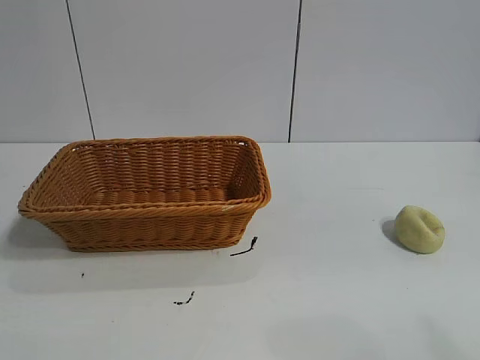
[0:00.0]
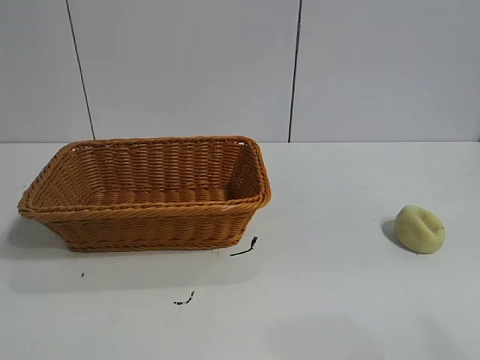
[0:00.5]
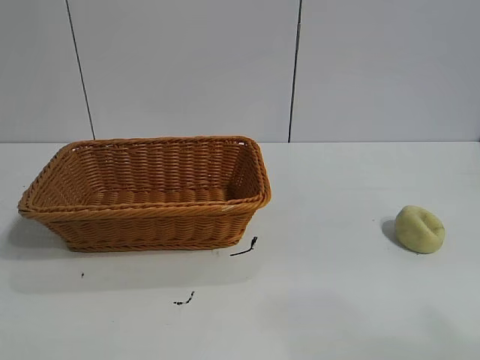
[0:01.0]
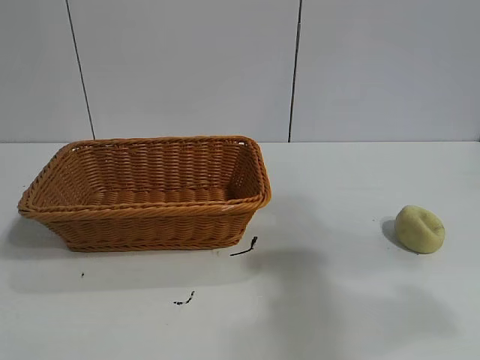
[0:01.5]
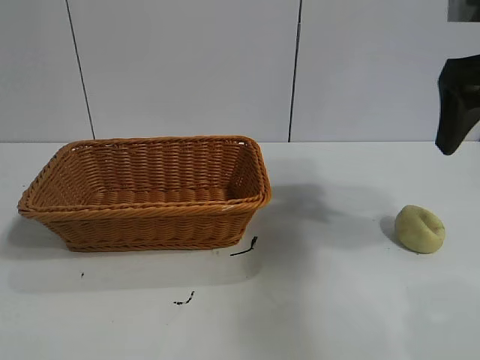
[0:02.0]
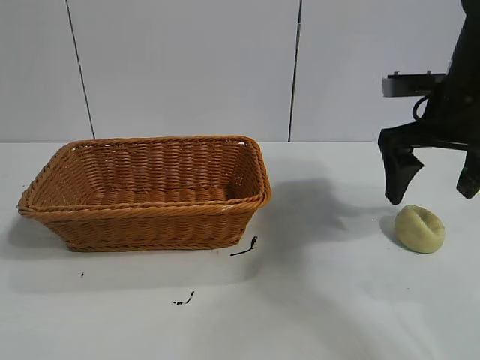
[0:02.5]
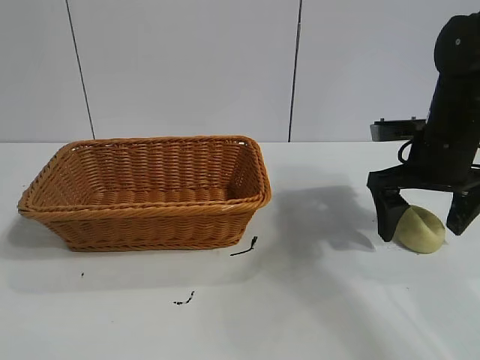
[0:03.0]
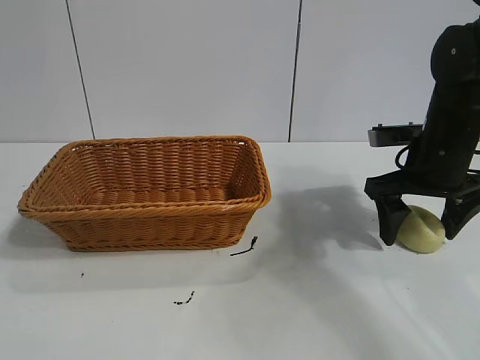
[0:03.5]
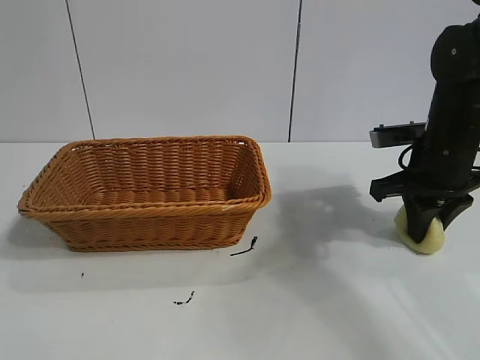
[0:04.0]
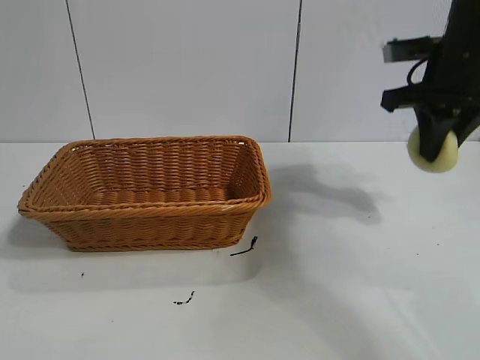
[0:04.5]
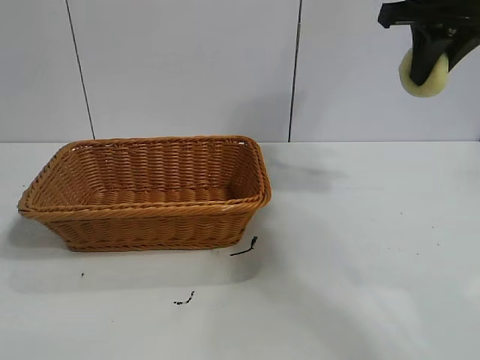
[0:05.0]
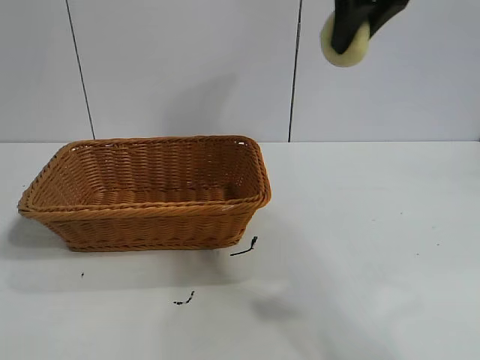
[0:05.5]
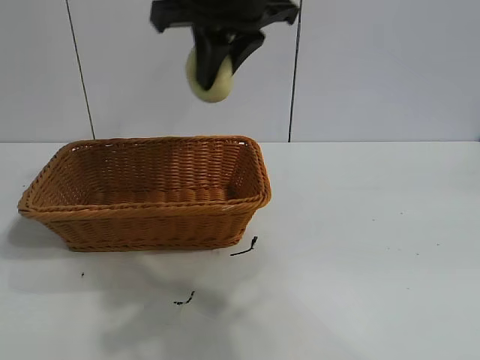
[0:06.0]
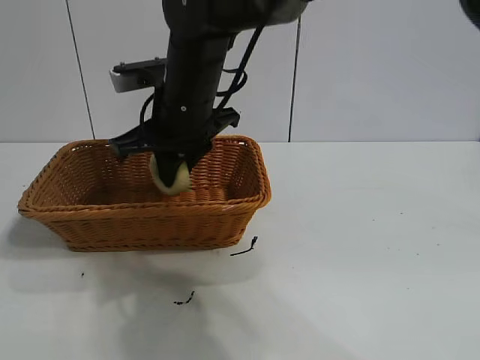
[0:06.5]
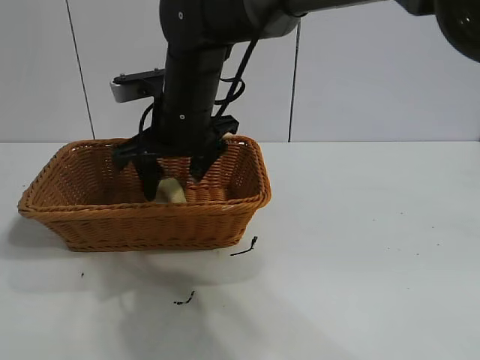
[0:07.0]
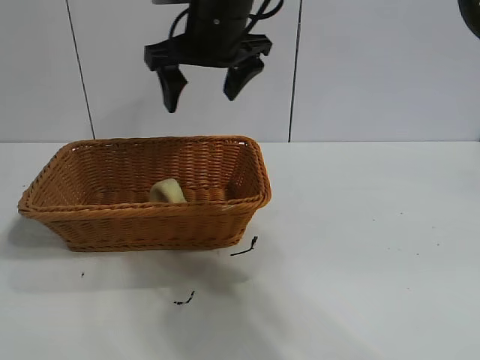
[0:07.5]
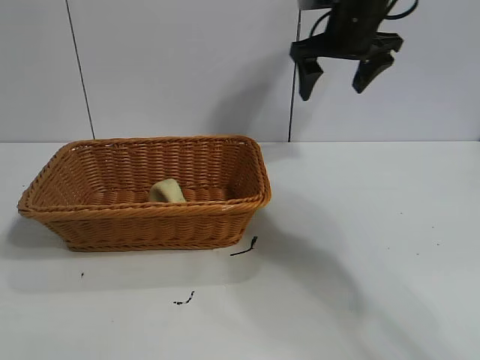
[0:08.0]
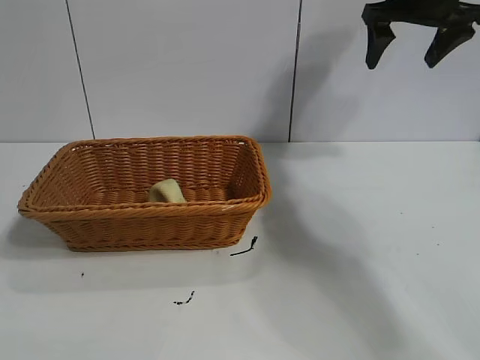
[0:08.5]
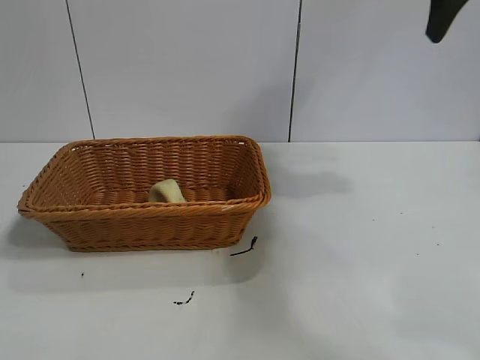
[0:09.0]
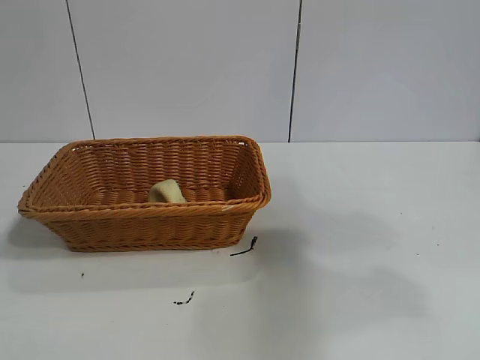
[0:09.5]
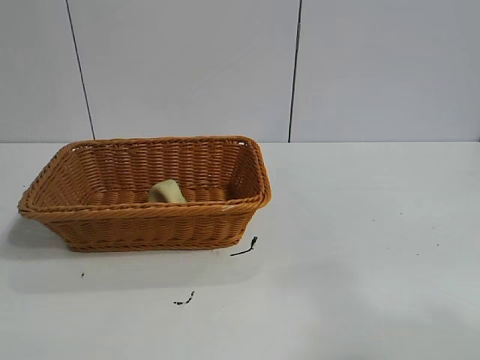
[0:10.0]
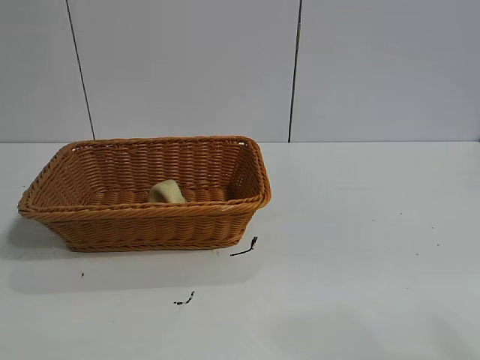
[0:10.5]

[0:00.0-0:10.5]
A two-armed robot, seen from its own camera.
Task of the whole recording: pick up the egg yolk pastry and put it into the basket.
Step, 0:01.0 to 0:03.5: Grasp egg yolk pastry with right gripper.
Step, 0:04.0 to 0:07.0: Place the egg yolk pastry in the basket with right gripper.
